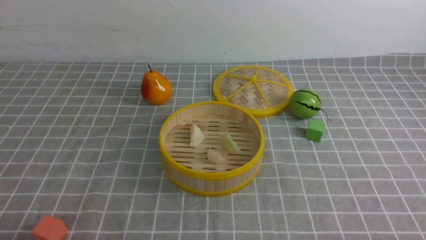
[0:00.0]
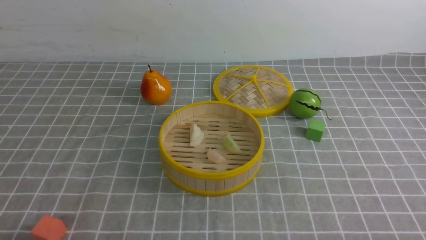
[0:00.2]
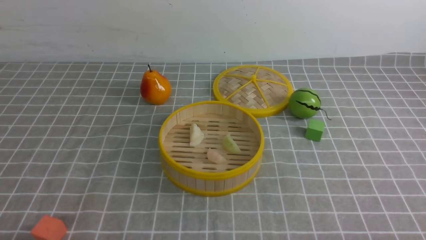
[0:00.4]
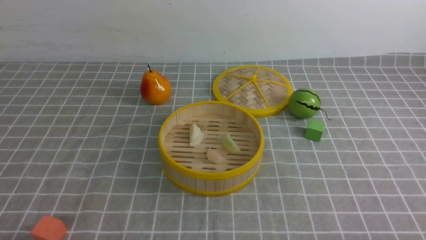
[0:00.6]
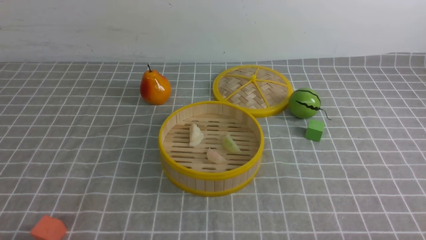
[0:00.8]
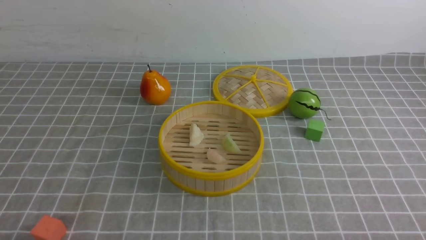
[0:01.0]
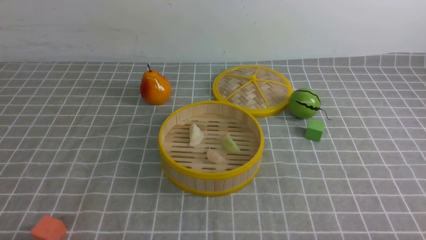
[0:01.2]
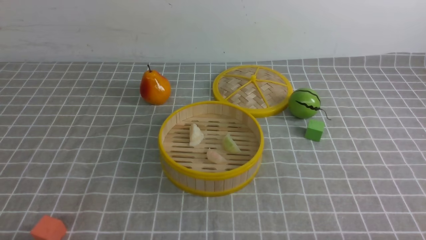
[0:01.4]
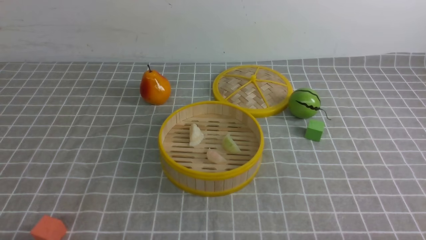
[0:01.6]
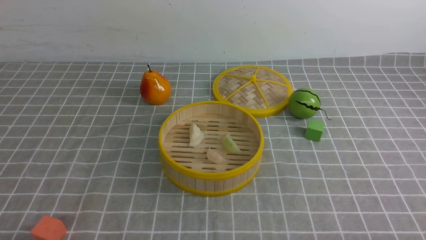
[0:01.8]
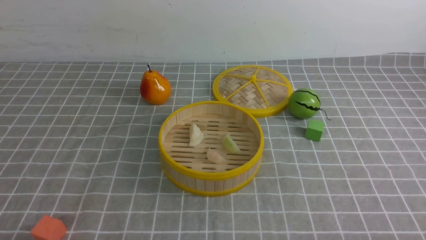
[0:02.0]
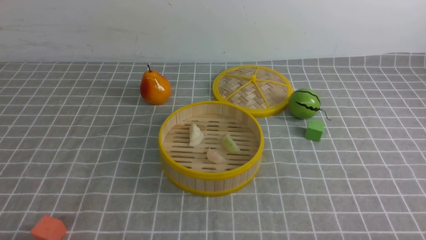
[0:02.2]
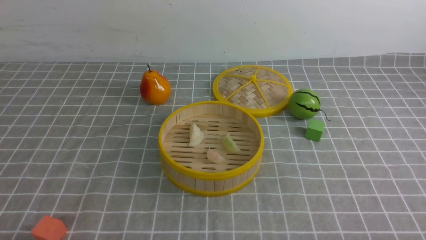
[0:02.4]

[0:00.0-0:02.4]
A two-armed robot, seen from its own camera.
Task of the whole recording: put the dumplings into the steamer on the table with the grey tablecloth.
0:01.2 to 0:02.4: Neither gripper changes place.
